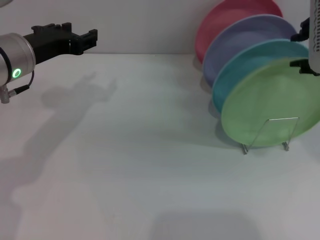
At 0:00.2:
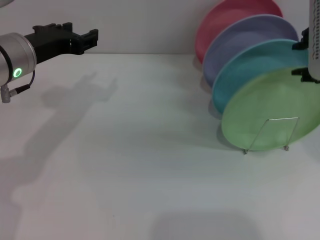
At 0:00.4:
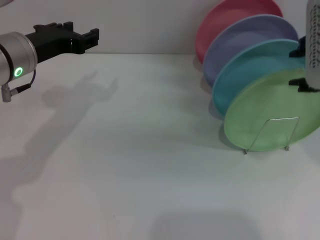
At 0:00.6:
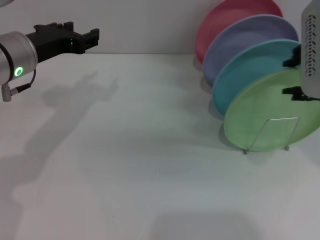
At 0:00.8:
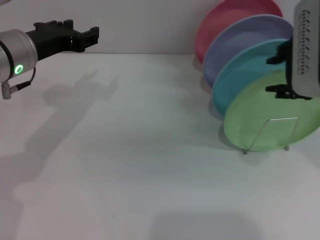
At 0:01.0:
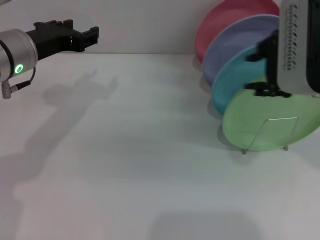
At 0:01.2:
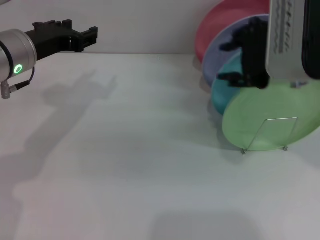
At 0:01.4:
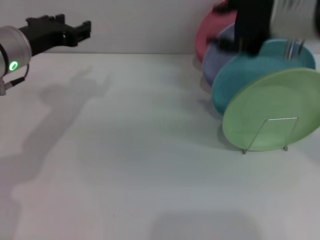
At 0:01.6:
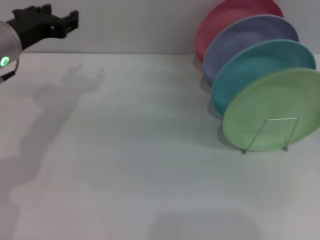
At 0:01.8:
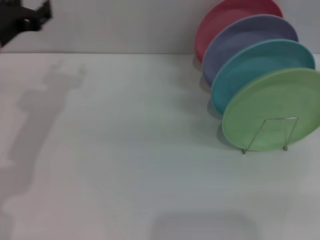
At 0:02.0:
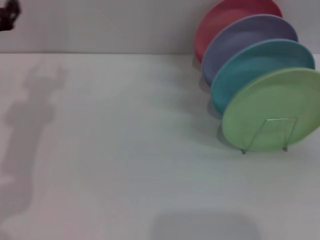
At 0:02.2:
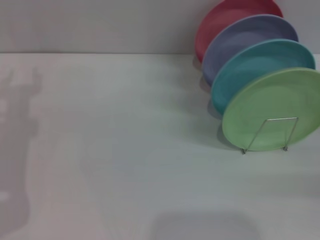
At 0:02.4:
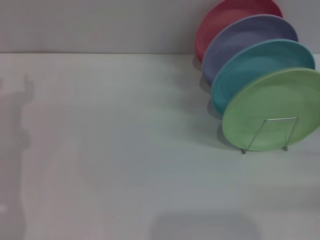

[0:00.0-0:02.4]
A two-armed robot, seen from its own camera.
Task of the whole recording: Grip the plate with one hand, pass it to the other, then set it on the shelf.
0:00.0 to 0:01.2: The grippers make only small movements.
0:01.2 to 0:02.4: The left gripper goes approximately 10 cm to the left, downward and backward; the right gripper shifts some 30 cm to the right and downward.
